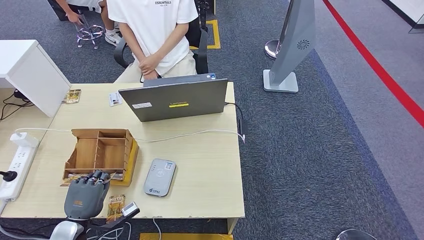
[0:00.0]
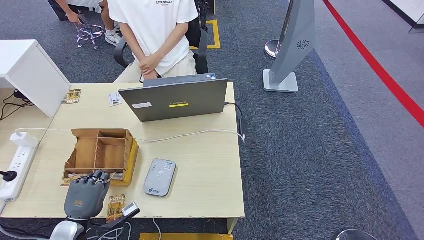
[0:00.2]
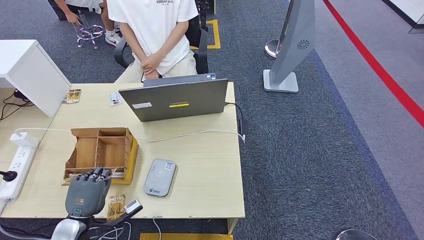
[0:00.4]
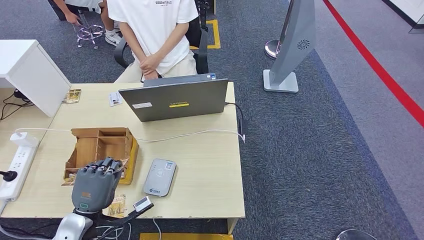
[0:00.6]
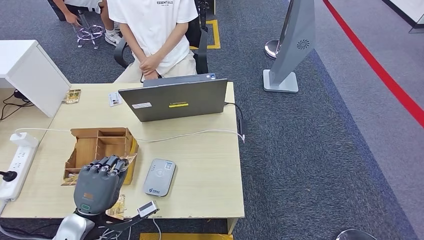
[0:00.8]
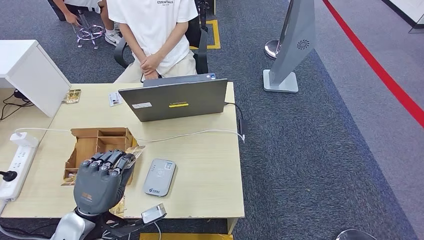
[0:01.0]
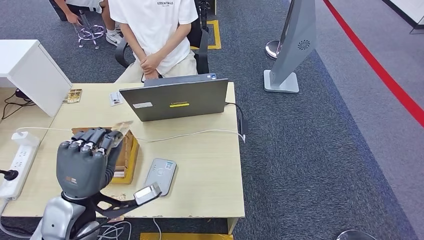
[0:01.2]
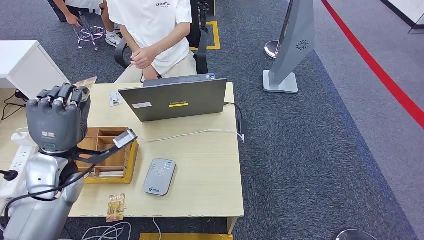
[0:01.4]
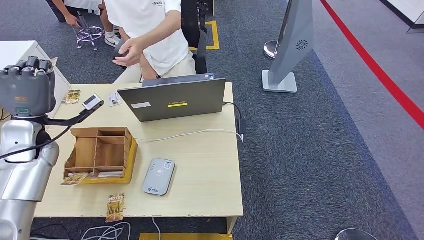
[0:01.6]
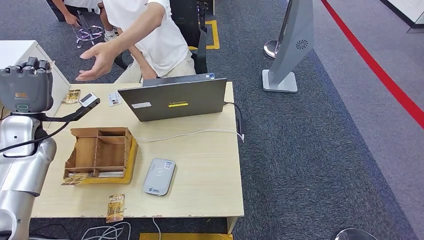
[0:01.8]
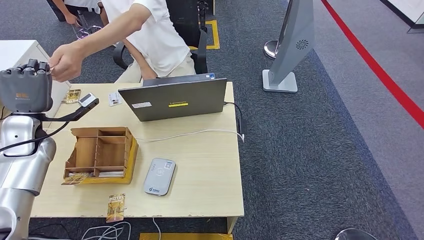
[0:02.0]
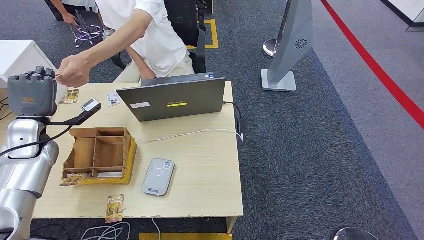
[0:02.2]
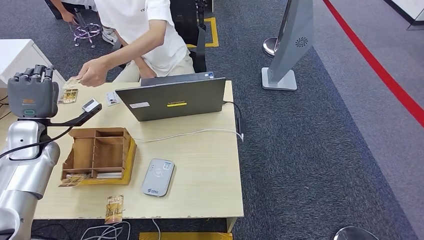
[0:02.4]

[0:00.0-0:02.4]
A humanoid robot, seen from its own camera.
Step, 0:00.6 to 0:02.4: Hand the room key to the person.
0:00.0 to 0:01.2: The left hand moves upward and to the right, some 20 cm.

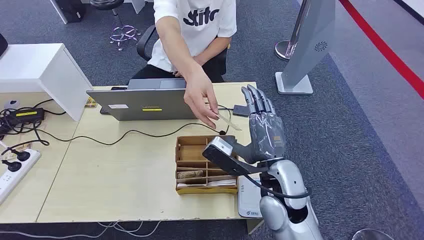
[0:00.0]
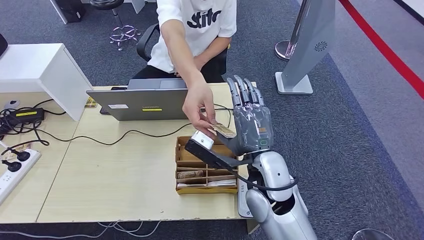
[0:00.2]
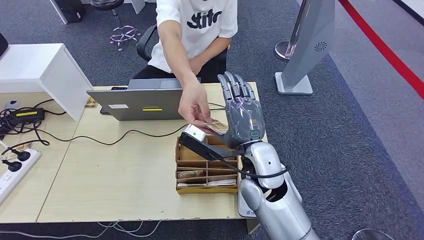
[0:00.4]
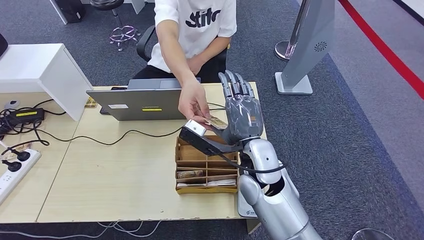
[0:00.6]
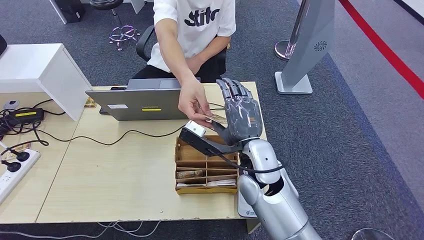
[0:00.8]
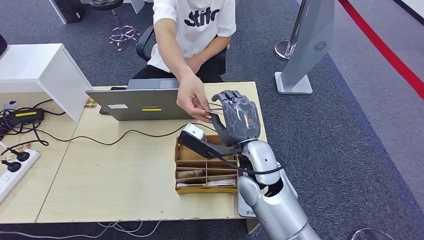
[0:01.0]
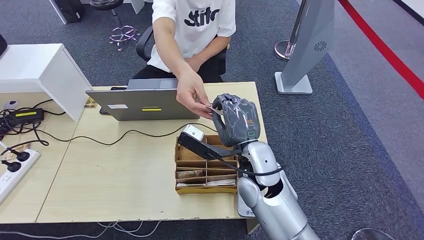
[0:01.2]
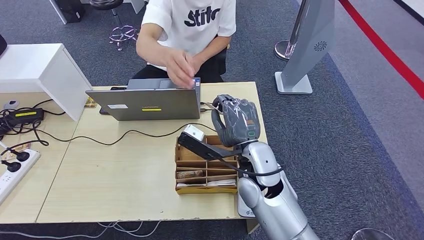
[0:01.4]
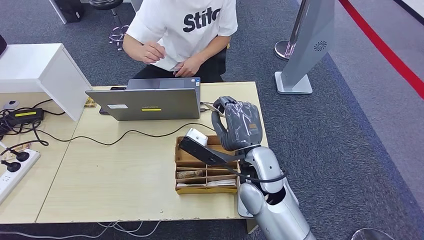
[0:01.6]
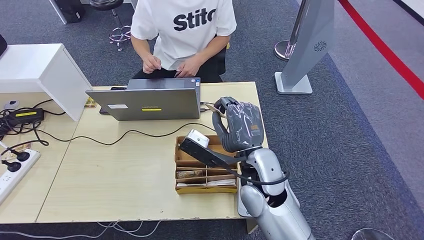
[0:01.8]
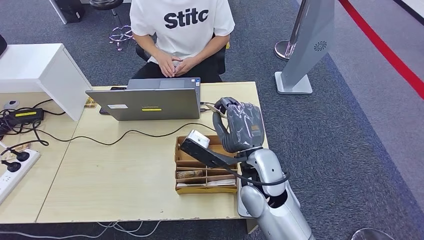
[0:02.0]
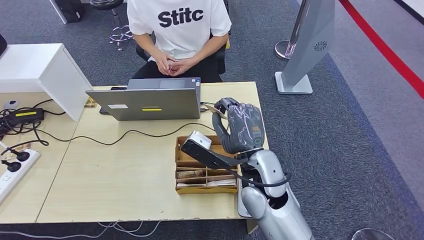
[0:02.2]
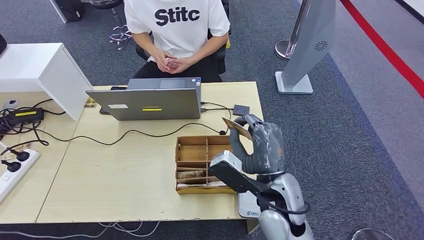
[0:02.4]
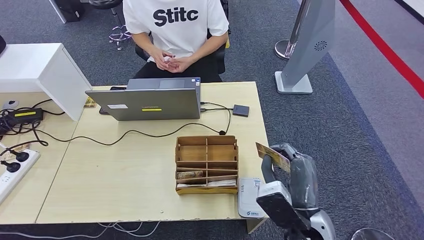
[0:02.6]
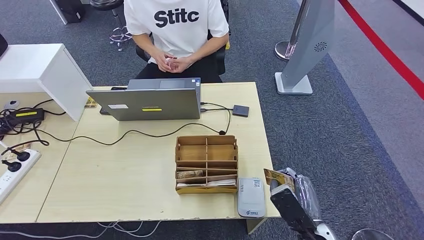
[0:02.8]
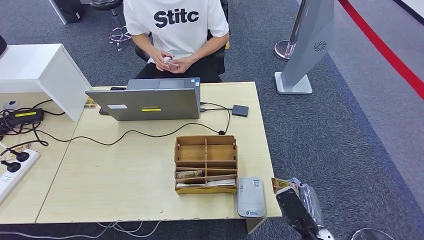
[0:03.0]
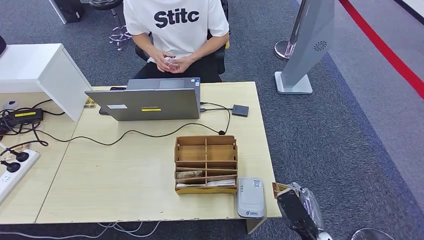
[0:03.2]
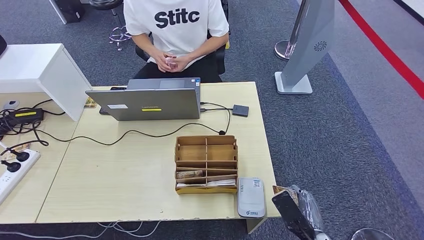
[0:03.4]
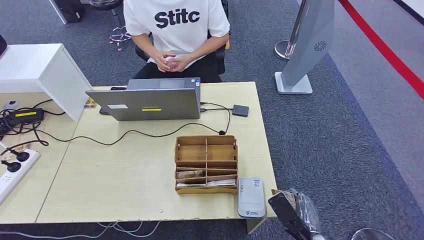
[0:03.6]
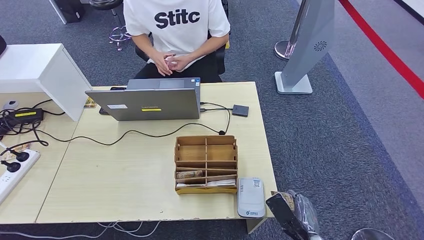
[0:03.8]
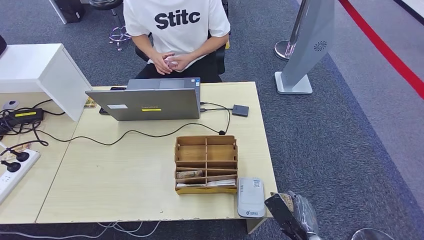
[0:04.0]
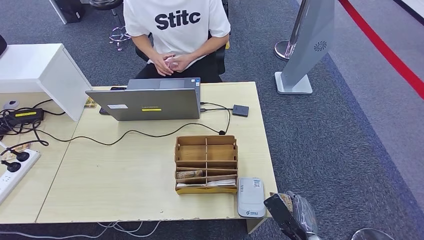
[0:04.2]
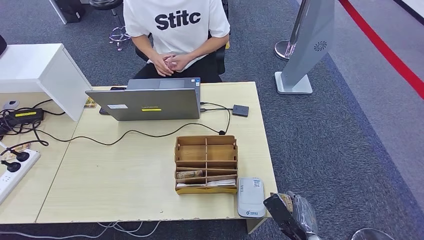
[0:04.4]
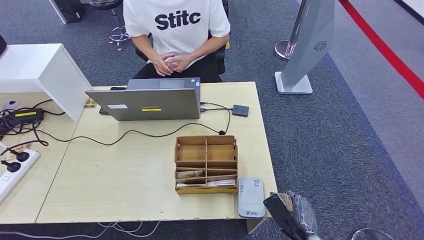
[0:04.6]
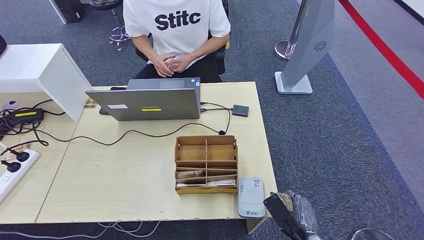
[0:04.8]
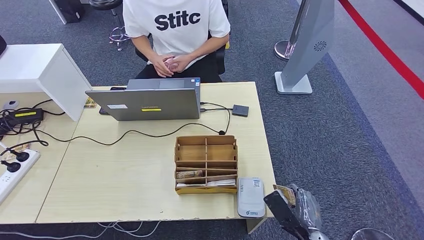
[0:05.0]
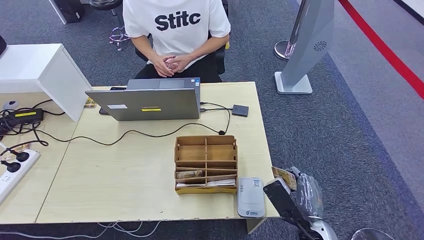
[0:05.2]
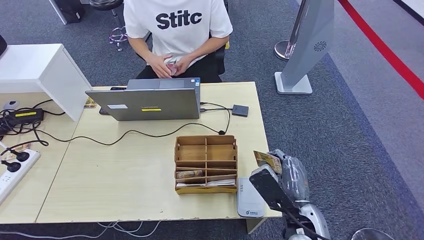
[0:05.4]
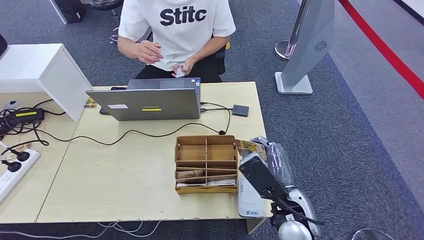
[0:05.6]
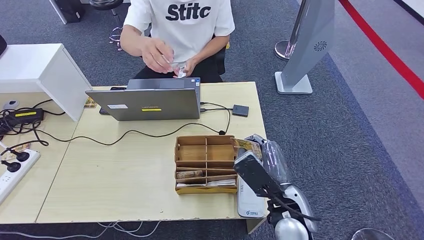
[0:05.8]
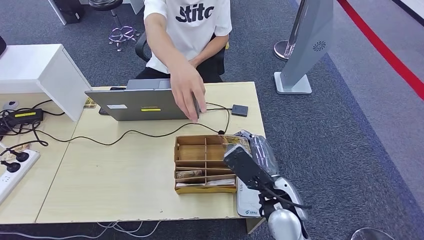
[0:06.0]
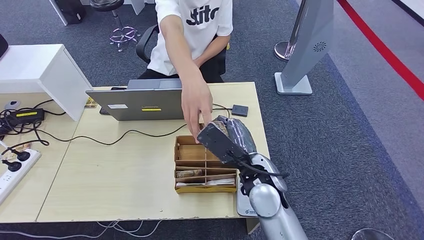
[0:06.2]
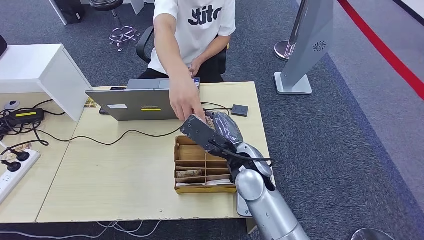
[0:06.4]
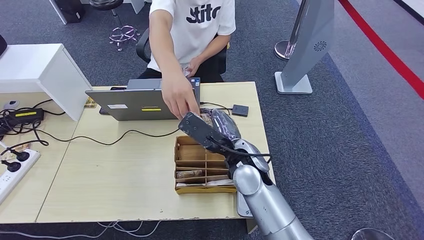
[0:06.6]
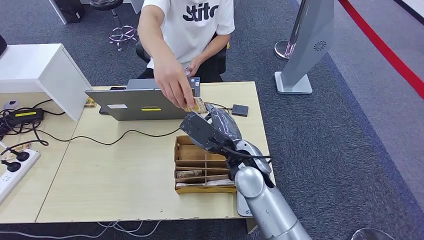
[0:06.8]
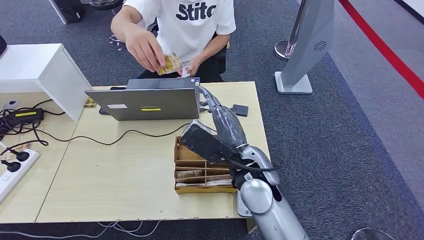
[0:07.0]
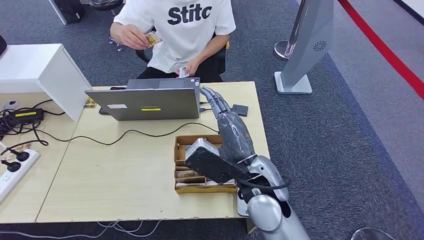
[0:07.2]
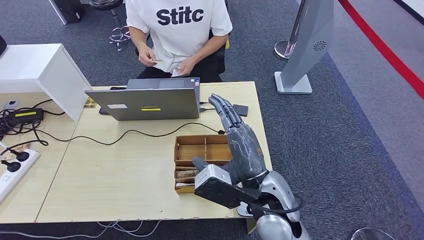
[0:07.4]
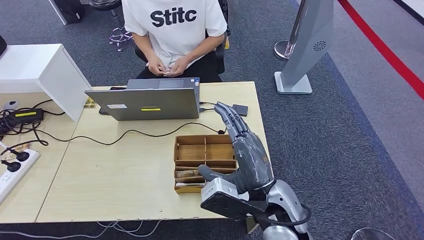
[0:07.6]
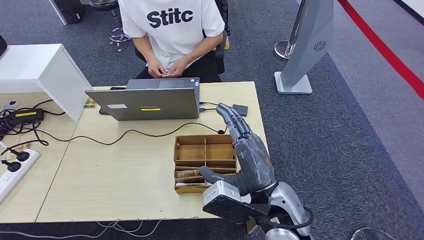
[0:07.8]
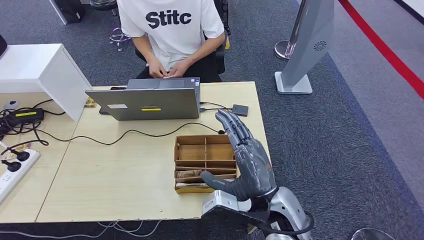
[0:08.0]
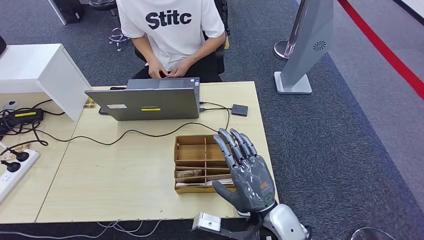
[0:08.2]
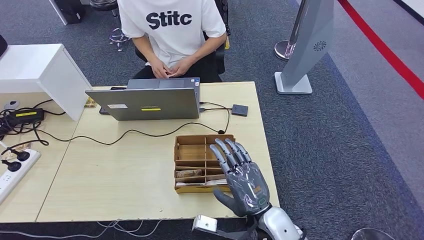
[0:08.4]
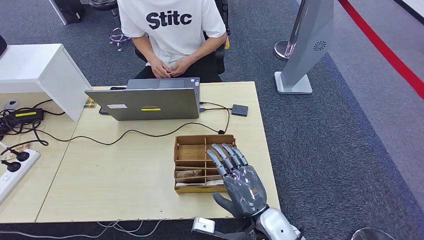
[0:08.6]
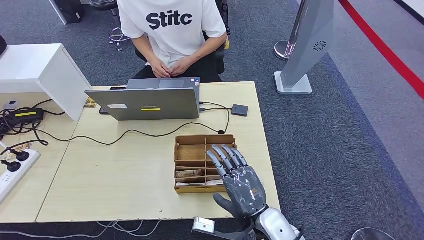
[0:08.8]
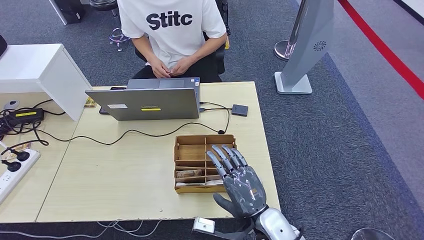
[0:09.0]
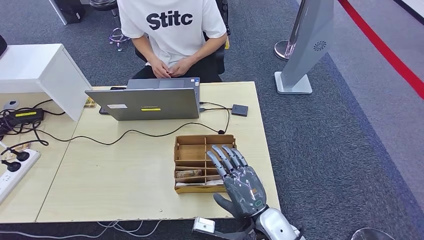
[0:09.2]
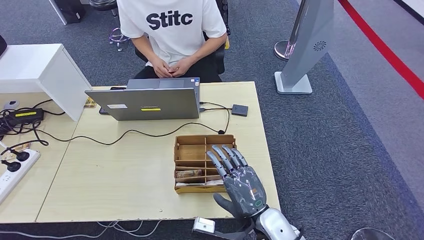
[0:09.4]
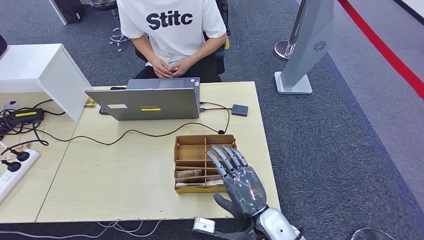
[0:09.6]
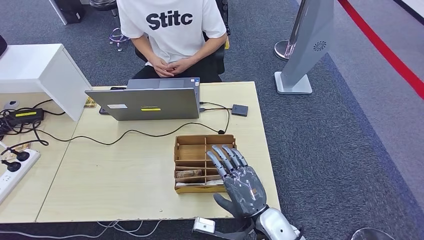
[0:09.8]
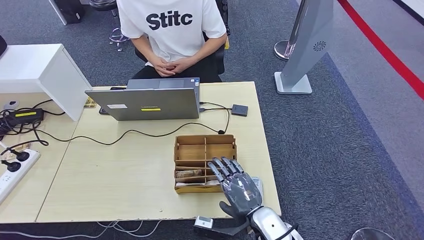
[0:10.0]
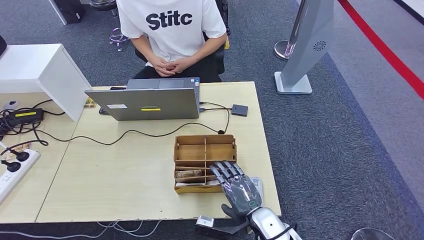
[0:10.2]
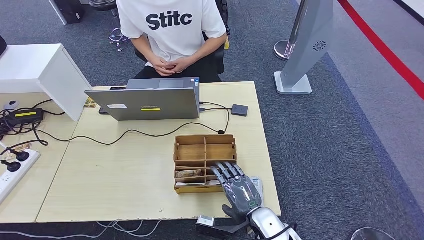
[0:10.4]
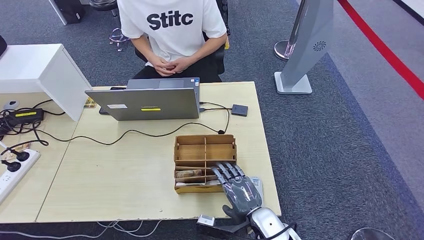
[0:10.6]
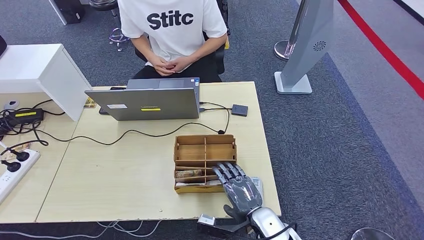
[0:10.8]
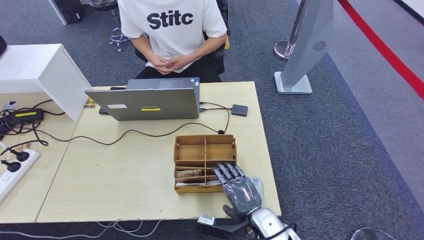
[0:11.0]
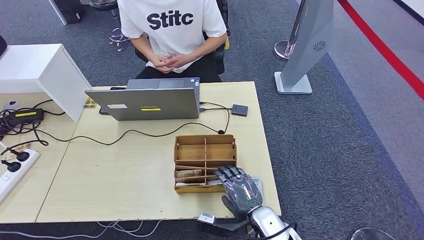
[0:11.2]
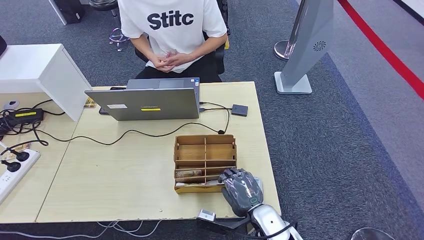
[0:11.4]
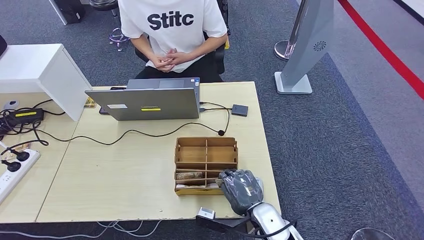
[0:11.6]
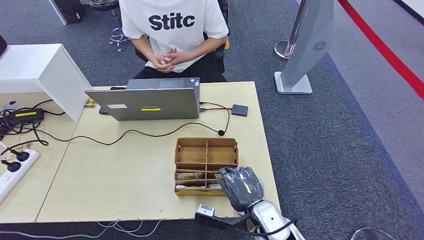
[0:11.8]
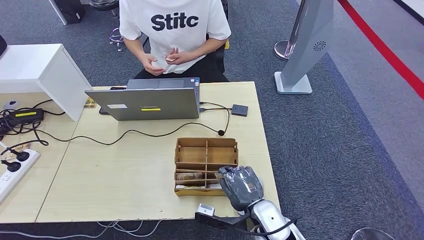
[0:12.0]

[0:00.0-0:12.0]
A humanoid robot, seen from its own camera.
Step, 0:00.0 to 0:01.6: Take the ID card from the person's hand.
Step, 0:01.8 to 0:05.8: Place the ID card on the card reader.
Step, 0:06.0 to 0:07.8: Hand the ID card to the person.
0:01.6 to 0:03.0: The right hand travels downward, to the right and backward by about 25 cm.
0:03.0 to 0:04.4: There are only small adjustments of the hands.
0:04.4 to 0:06.0: The right hand shifts about 20 cm upward, forward and to the left.
0:06.0 to 0:07.6: The right hand moves about 5 cm forward and comes back.
0:07.6 to 0:09.0: The right hand goes approximately 10 cm downward.
0:09.0 to 0:10.4: The right hand moves downward, roughly 5 cm.
0:10.4 to 0:12.0: The hands stay close to where they were, moving slightly.

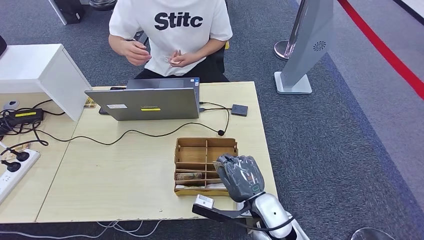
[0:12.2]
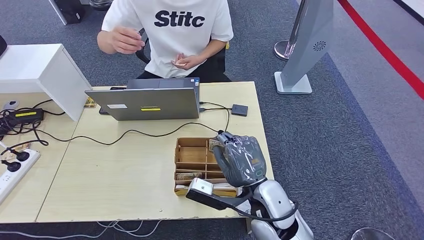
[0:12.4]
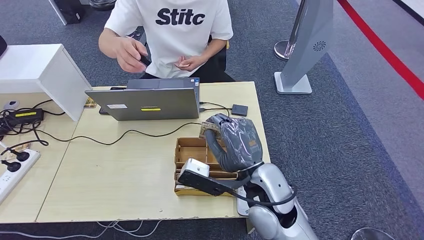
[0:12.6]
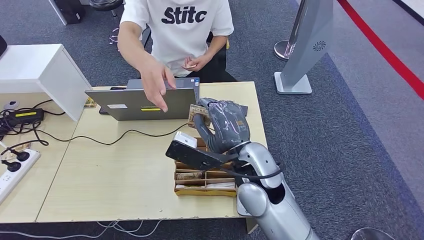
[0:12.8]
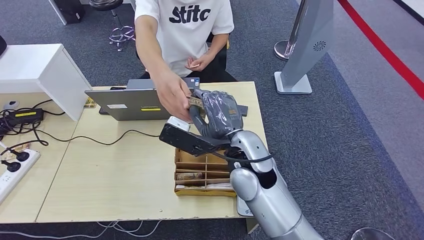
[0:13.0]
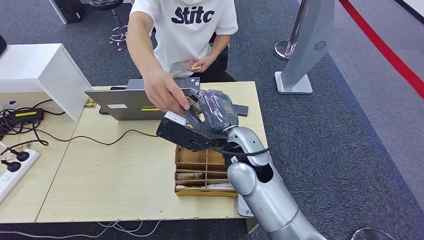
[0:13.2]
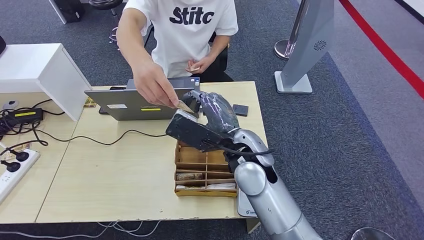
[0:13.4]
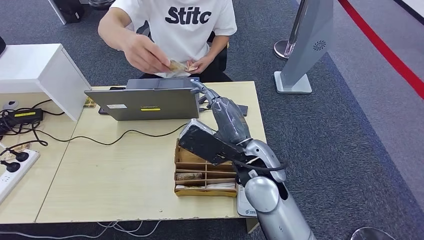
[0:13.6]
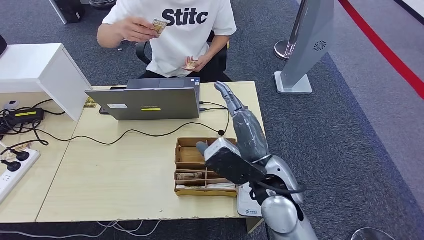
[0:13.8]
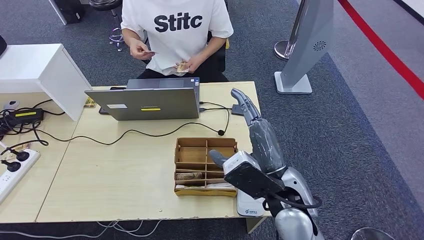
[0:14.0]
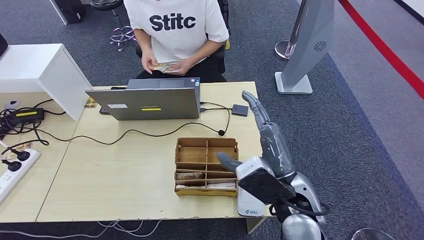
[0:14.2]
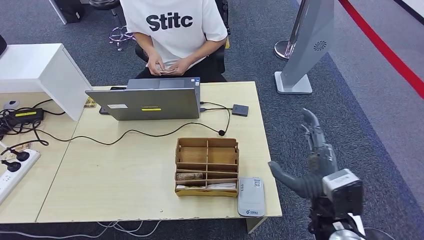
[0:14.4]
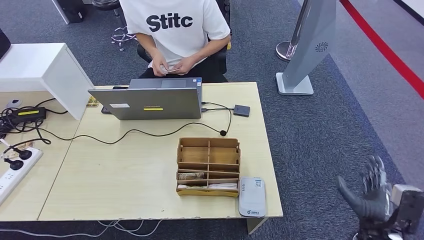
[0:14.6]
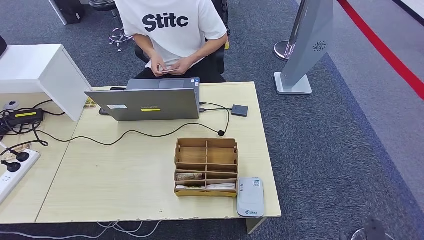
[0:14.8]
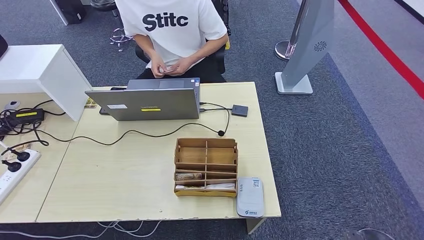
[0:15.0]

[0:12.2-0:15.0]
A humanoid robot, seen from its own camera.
Step, 0:12.8 to 0:15.0: Hand the room key to the person.
0:12.2 to 0:13.6: The right hand shifts about 15 cm upward and forward.
0:13.6 to 0:15.0: The right hand travels downward, to the right and backward by some 50 cm.
